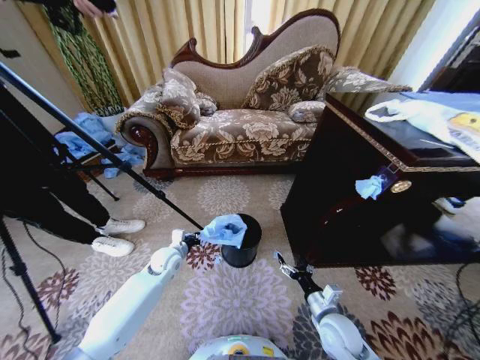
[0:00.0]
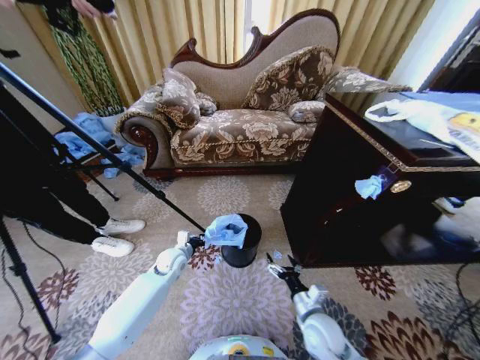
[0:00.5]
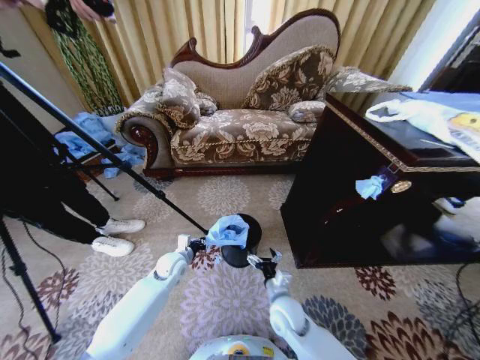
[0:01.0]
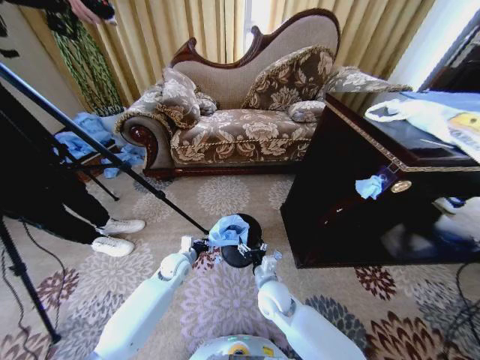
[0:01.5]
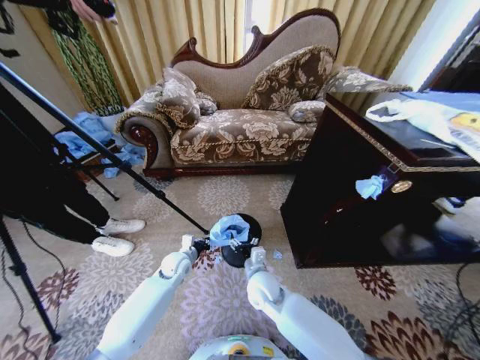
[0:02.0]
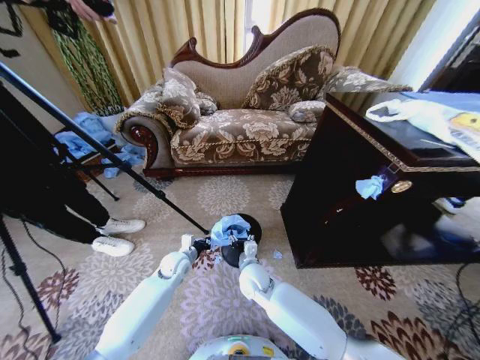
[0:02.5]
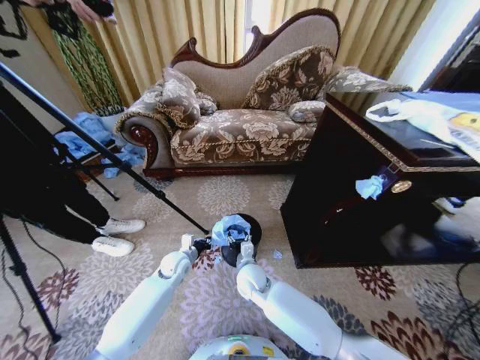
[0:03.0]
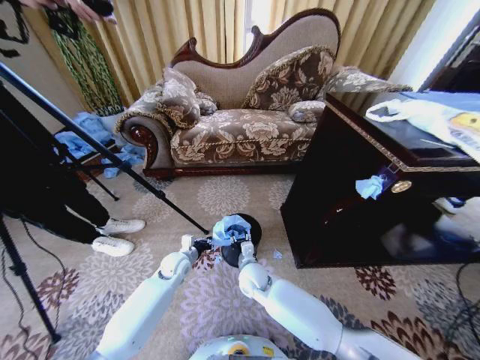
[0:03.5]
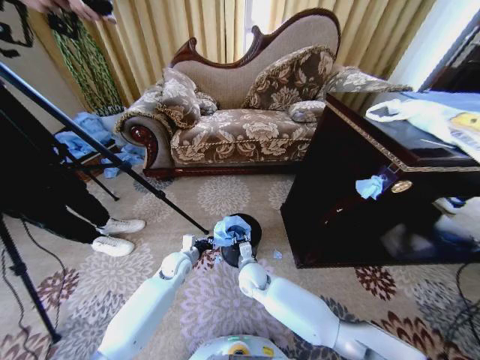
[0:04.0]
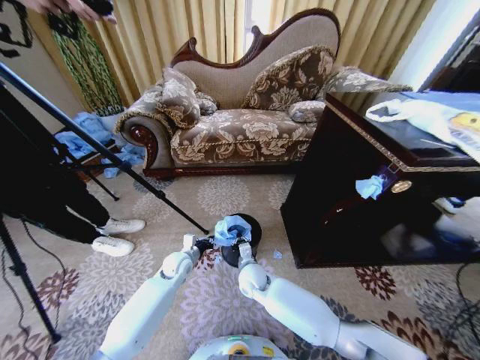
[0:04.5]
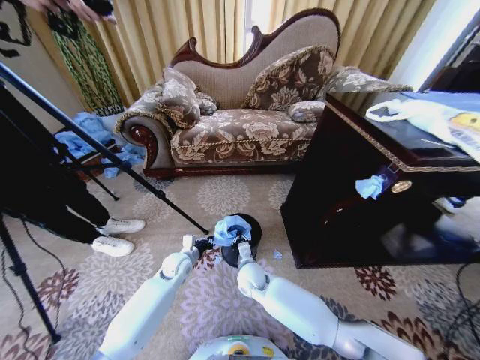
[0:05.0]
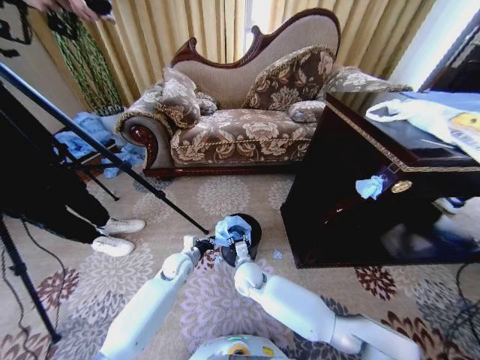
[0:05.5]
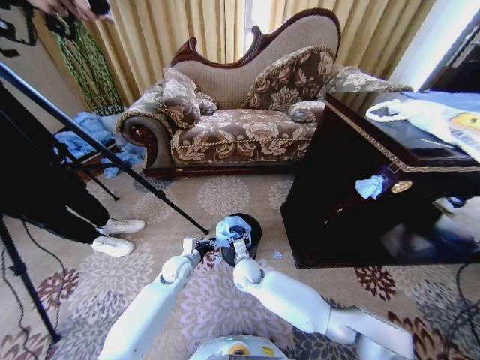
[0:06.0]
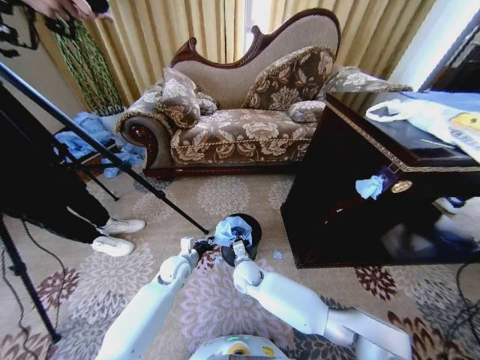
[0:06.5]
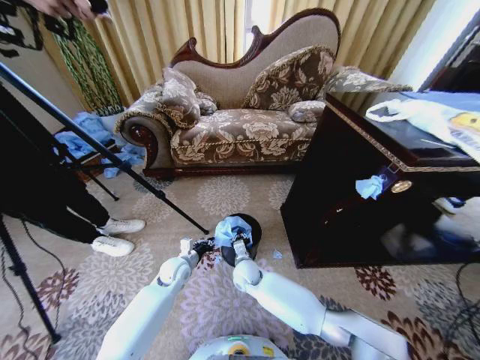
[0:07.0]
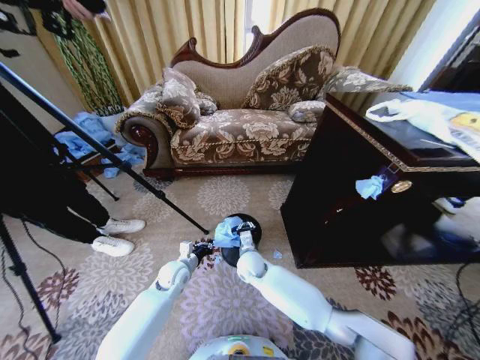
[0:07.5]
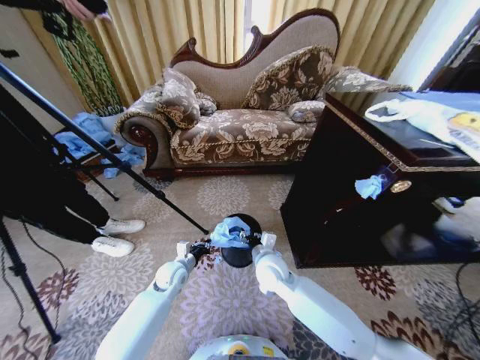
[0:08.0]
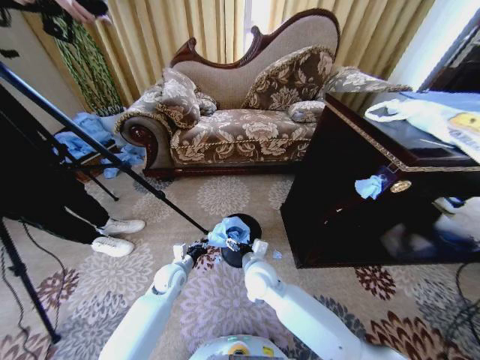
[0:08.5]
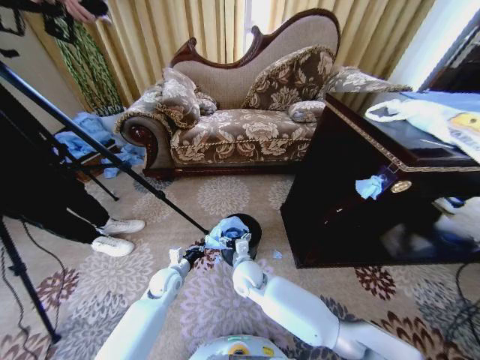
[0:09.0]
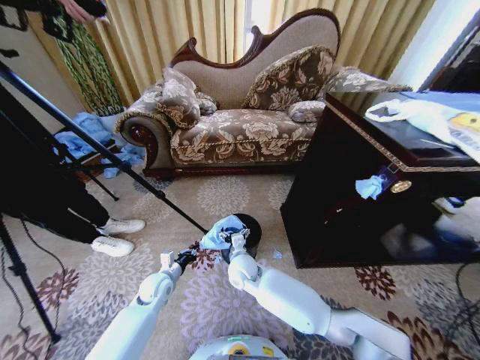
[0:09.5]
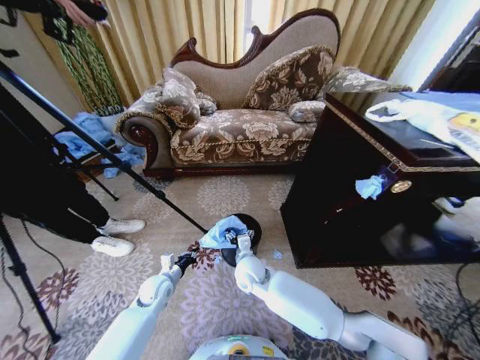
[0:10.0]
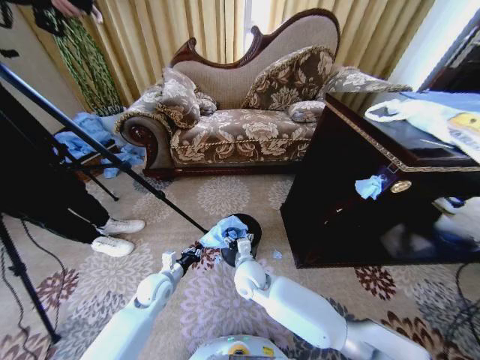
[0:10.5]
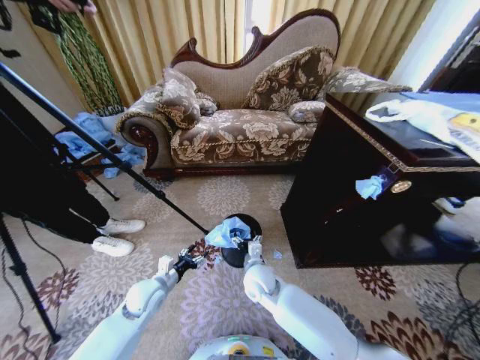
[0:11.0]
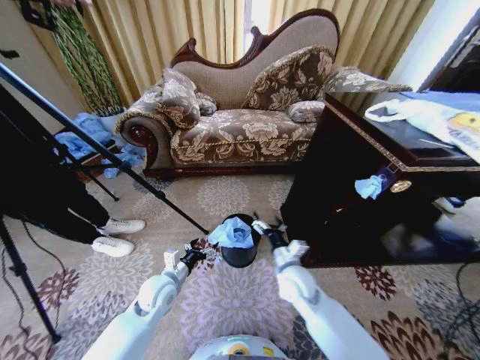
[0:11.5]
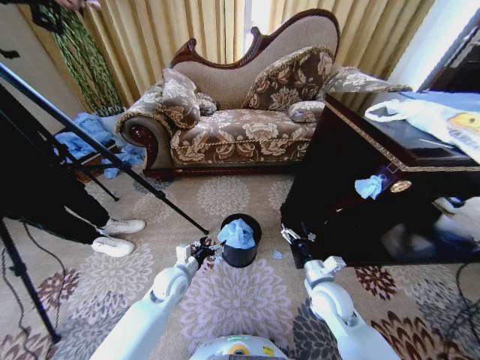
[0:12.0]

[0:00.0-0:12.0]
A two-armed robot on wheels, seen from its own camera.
Task of the whole recording: Place a garbage bag over the trash bin.
0:00.0 to 0:02.0: The right gripper shifts approximately 20 cm to the left and forward.
0:02.0 to 0:04.0: The right gripper ends up some 5 cm from where it was, and closes up.
0:04.0 to 0:06.0: The right gripper closes, then opens again.
0:06.0 to 0:08.0: The right gripper is displaced upward and to the right by approximately 10 cm.
0:08.0 to 0:10.0: The left gripper changes place by roughly 5 cm. The right gripper is displaced to the left by roughly 5 cm, and opens its fingers.
0:10.0 to 0:12.0: The left gripper shifts roughly 10 cm to the right and upward, and opens up, while the right gripper travels to the right by roughly 20 cm.

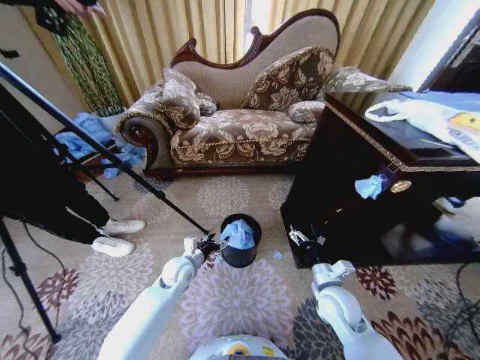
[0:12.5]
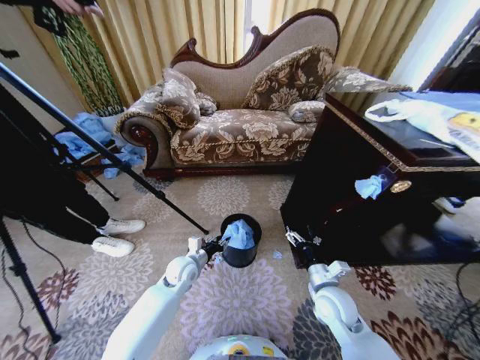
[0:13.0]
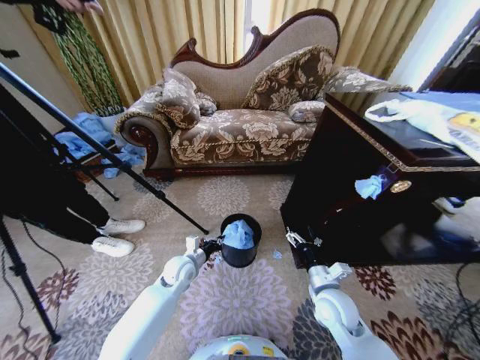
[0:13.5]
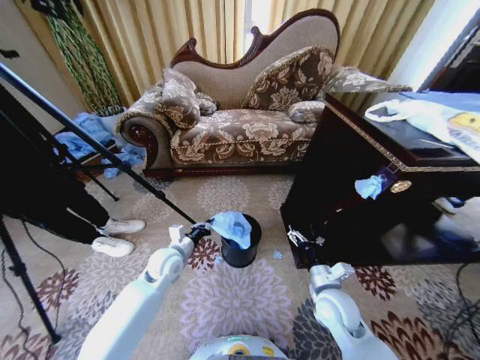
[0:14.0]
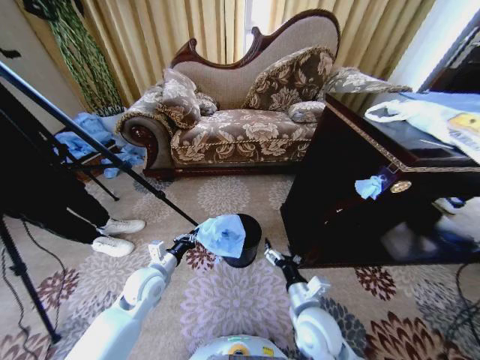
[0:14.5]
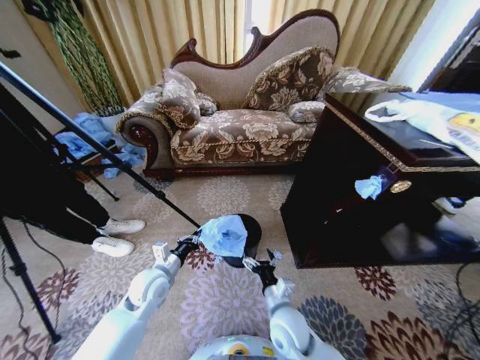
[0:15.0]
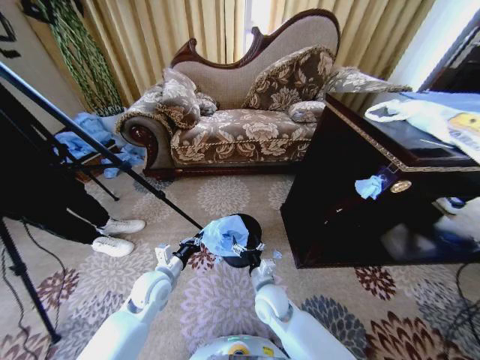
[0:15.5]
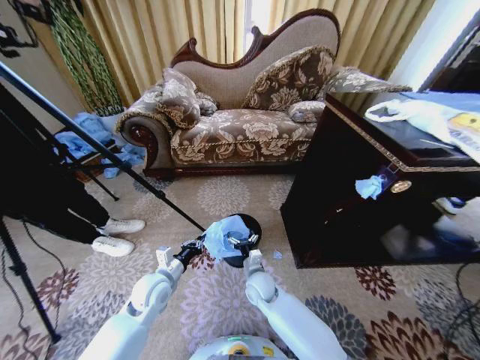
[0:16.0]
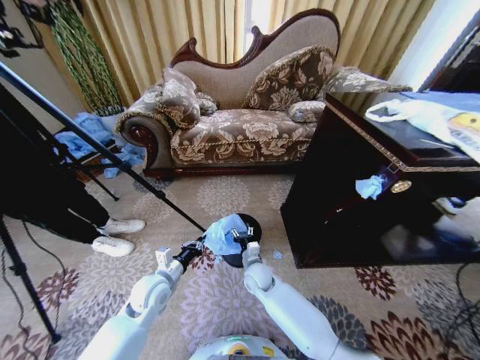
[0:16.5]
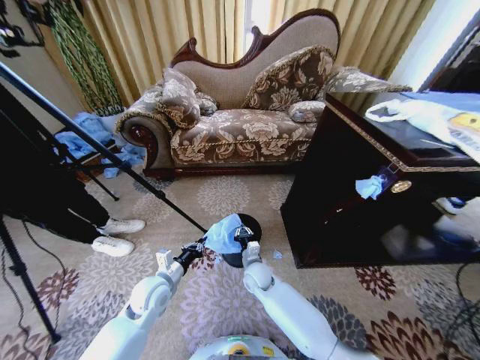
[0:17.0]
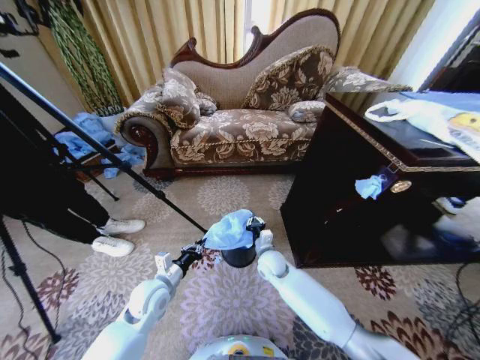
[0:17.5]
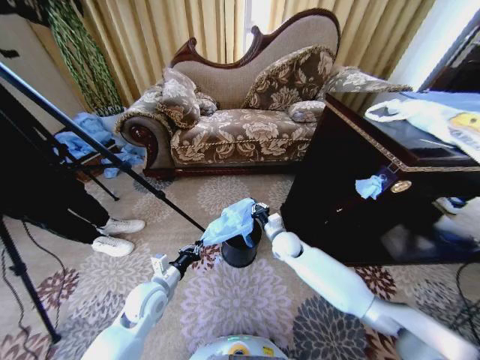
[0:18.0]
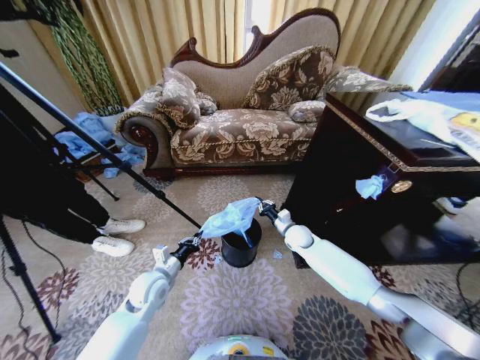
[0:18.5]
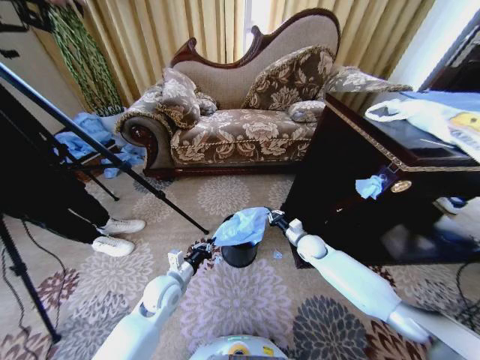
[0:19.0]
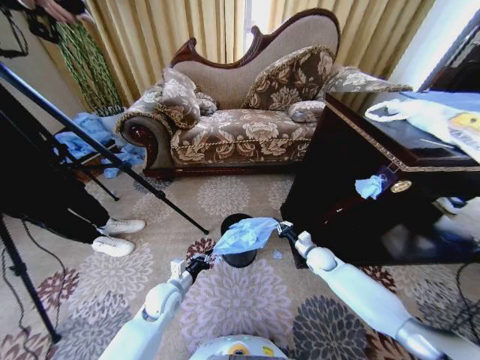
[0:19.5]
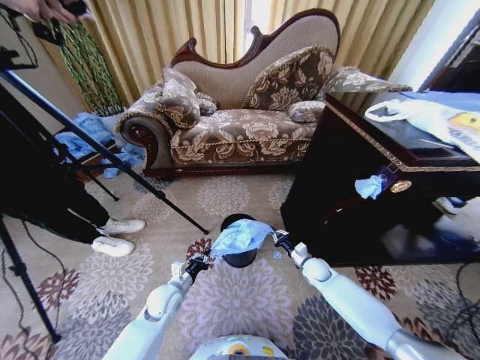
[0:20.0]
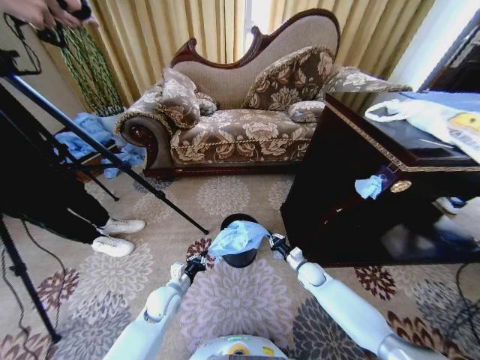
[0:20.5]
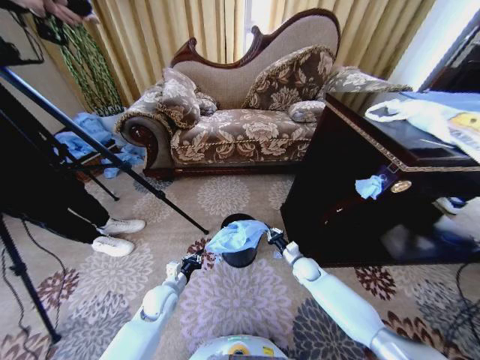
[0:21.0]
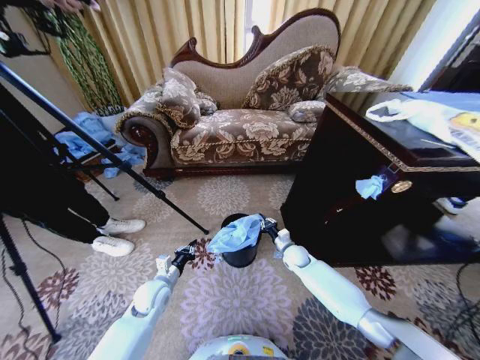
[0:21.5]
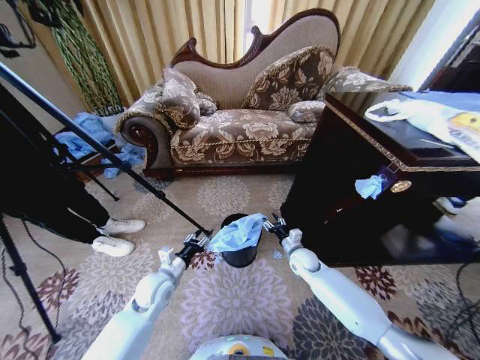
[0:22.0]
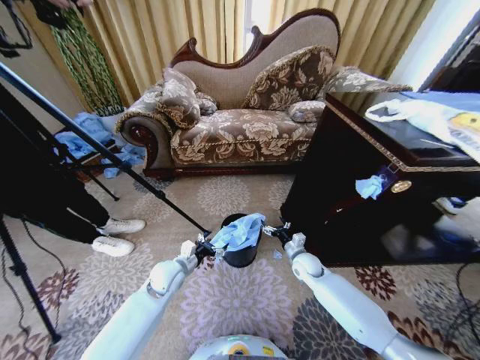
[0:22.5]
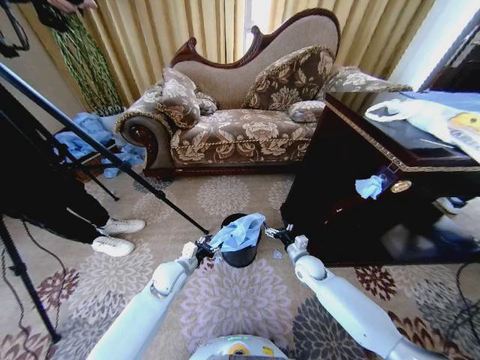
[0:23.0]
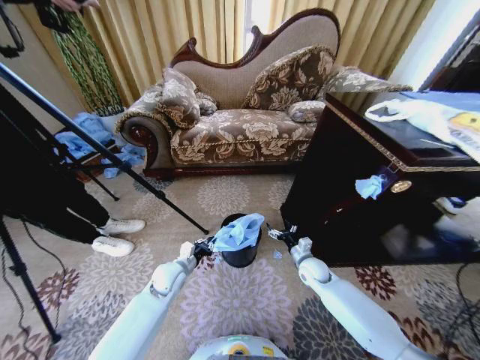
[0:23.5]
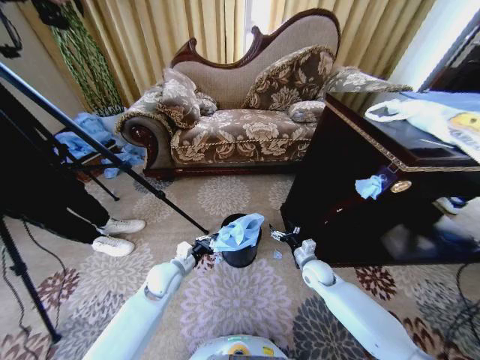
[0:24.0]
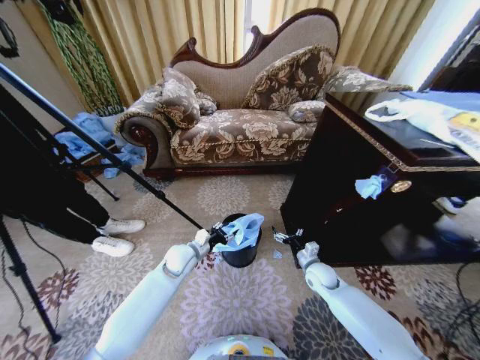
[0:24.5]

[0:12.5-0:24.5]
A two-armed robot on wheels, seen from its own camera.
Task of the whole recording: Place a garbage bag over the trash bin.
0:12.5 to 0:14.5: The right gripper moves to the left and backward, approximately 10 cm; the left gripper moves to the left, backward and upward, about 10 cm, and closes up.
0:14.5 to 0:16.5: The right gripper shifts about 20 cm forward, to the left and downward, and closes.
0:16.5 to 0:18.5: The right gripper shifts roughly 20 cm to the right, forward and upward, and closes.
0:18.5 to 0:20.5: The right gripper shifts approximately 15 cm downward, backward and to the right. The left gripper travels downward by roughly 10 cm.
0:20.5 to 0:22.5: The two grippers go approximately 5 cm upward. The right gripper opens up. The left gripper opens up.
0:22.5 to 0:24.5: The left gripper moves forward, some 5 cm, and closes its fingers, while the right gripper changes place by approximately 5 cm.

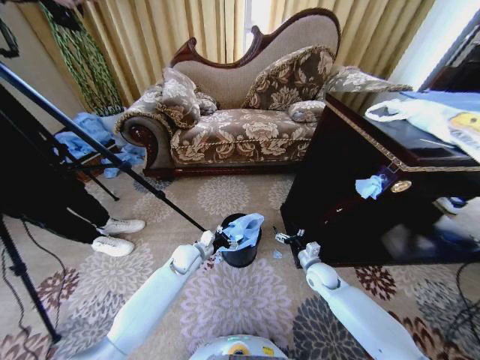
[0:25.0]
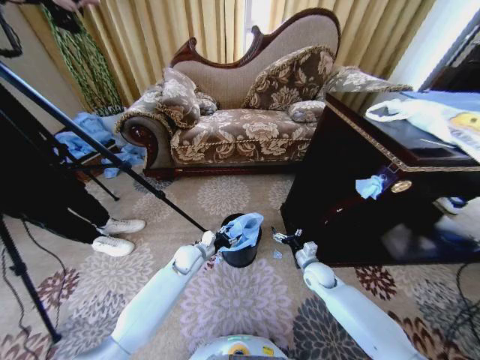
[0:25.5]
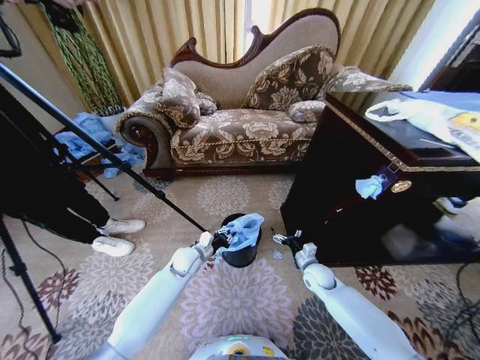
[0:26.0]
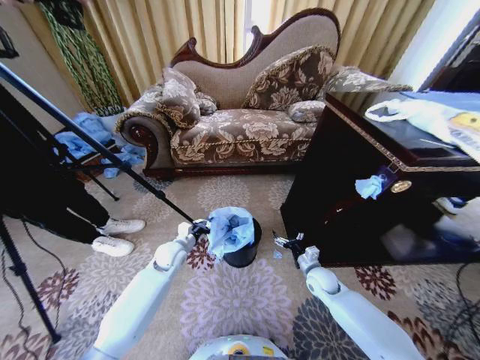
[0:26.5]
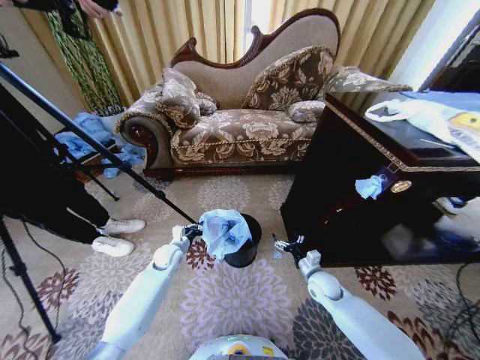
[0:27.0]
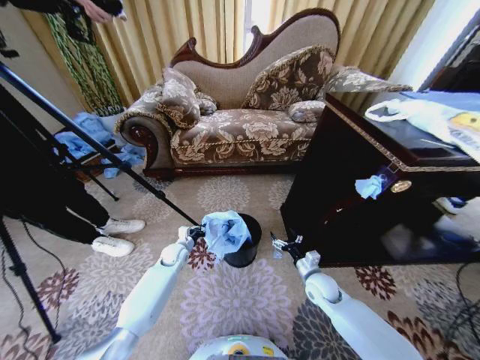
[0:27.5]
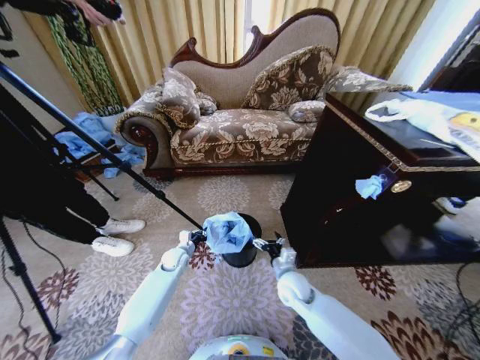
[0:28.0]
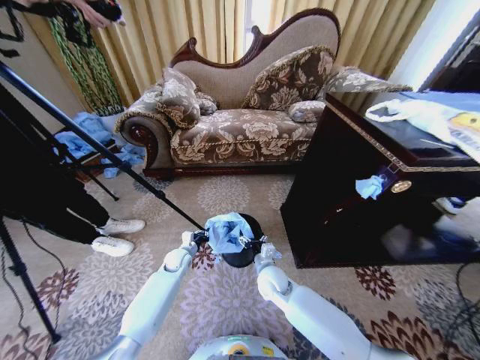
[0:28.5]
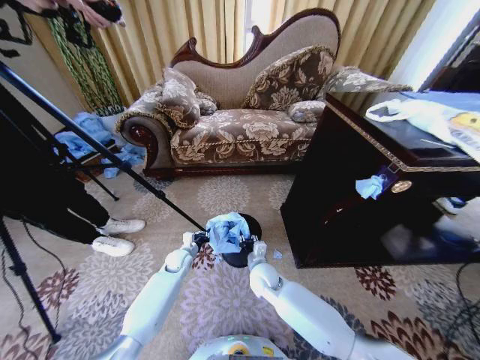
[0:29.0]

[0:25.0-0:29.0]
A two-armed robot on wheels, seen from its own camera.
Task of the whole recording: Place a garbage bag over the trash bin.
0:25.0 to 0:27.0: The left gripper heads to the left, covering approximately 10 cm, and closes up.
0:27.0 to 0:29.0: The right gripper heads to the left, covering about 20 cm, and closes, while the left gripper changes place by approximately 5 cm.
